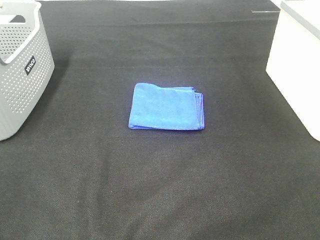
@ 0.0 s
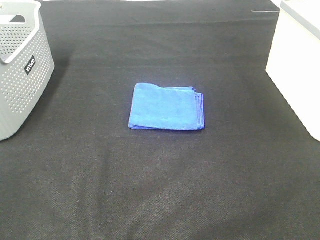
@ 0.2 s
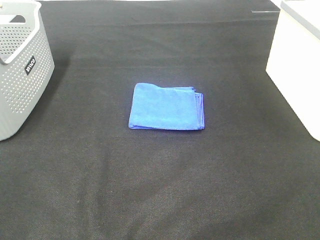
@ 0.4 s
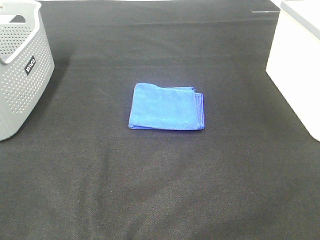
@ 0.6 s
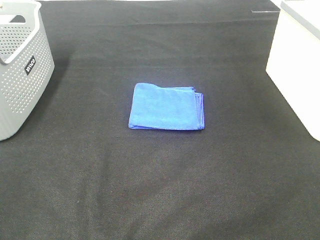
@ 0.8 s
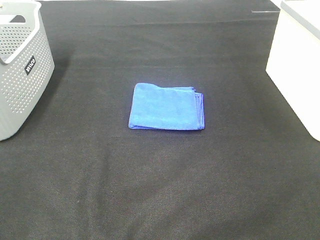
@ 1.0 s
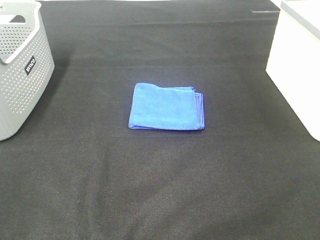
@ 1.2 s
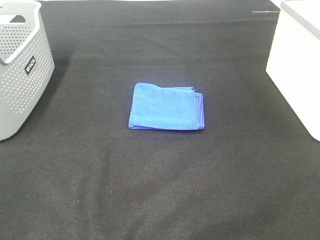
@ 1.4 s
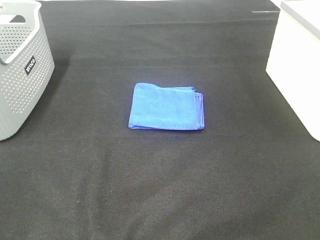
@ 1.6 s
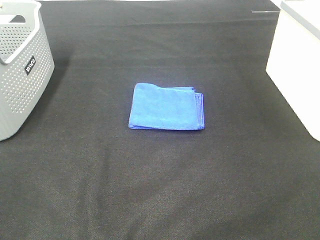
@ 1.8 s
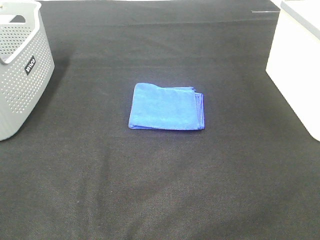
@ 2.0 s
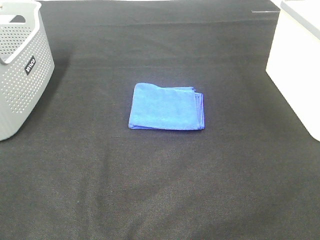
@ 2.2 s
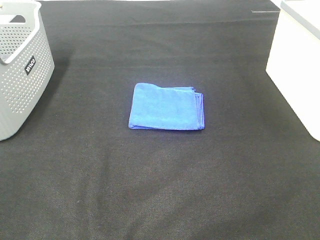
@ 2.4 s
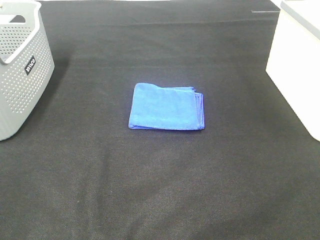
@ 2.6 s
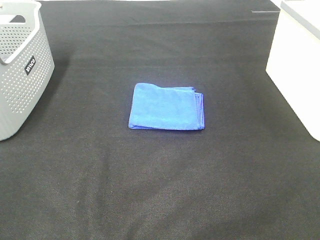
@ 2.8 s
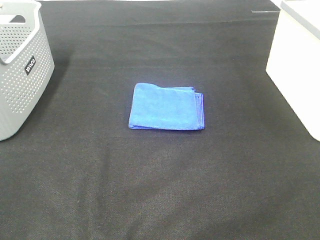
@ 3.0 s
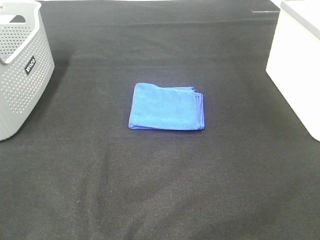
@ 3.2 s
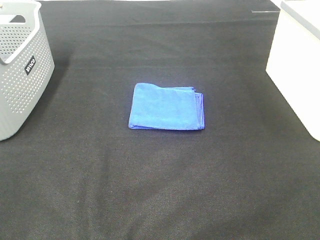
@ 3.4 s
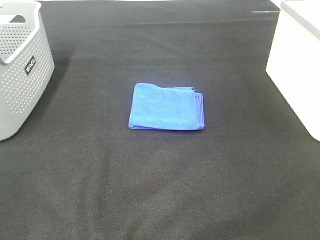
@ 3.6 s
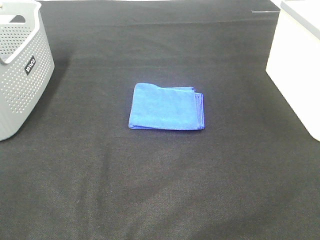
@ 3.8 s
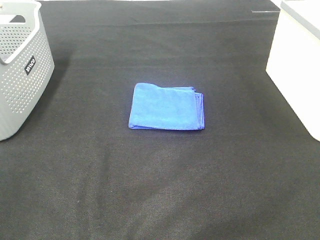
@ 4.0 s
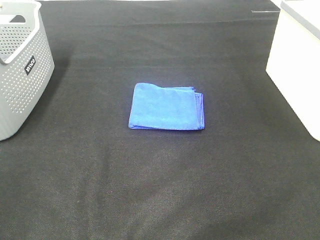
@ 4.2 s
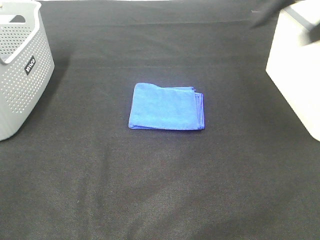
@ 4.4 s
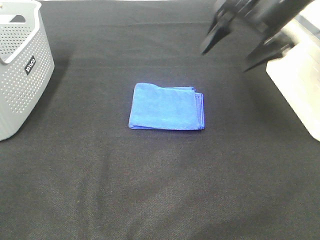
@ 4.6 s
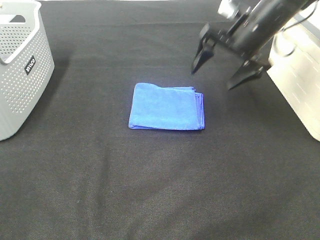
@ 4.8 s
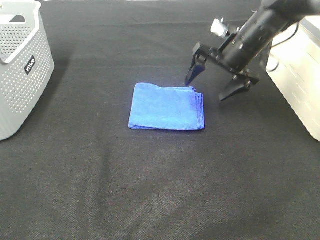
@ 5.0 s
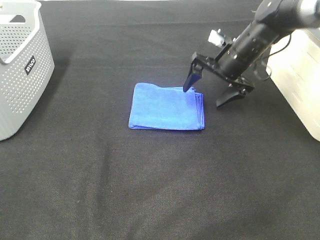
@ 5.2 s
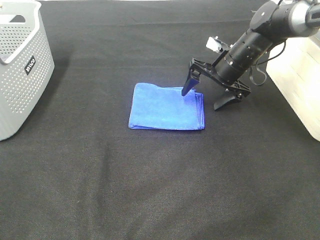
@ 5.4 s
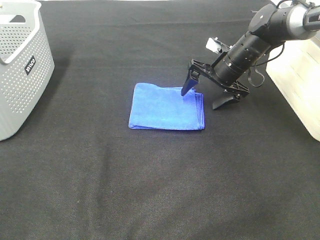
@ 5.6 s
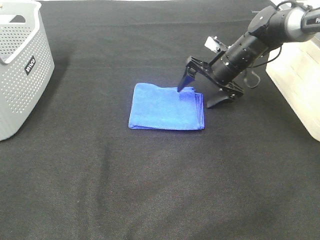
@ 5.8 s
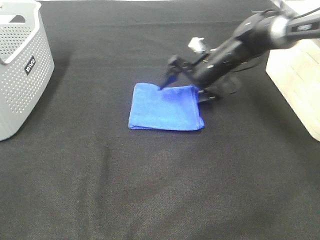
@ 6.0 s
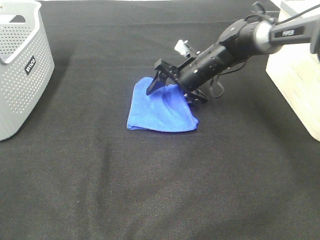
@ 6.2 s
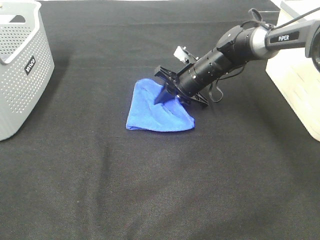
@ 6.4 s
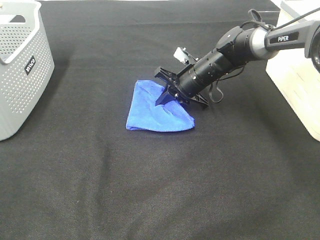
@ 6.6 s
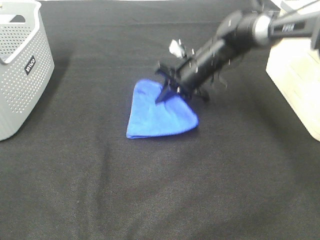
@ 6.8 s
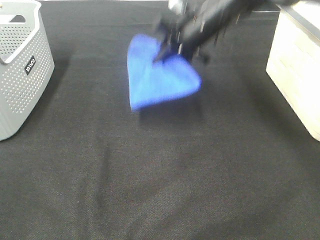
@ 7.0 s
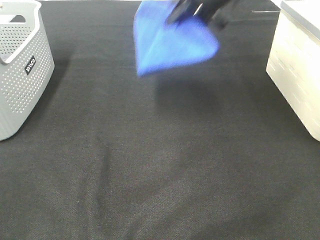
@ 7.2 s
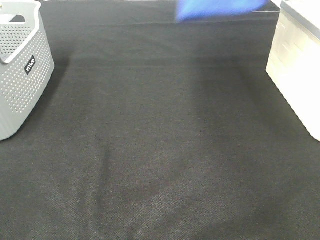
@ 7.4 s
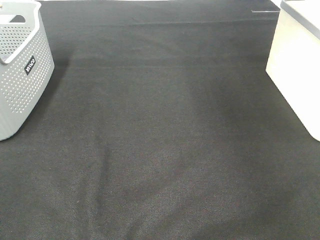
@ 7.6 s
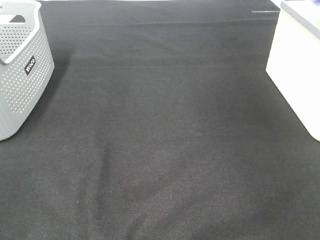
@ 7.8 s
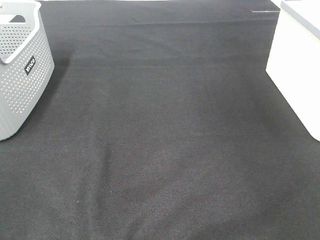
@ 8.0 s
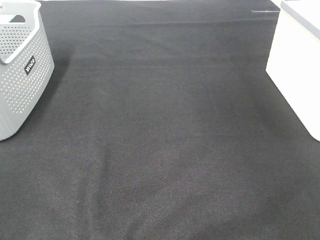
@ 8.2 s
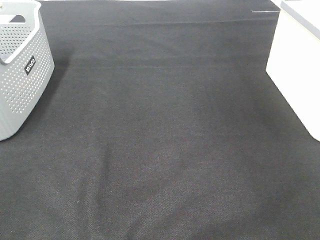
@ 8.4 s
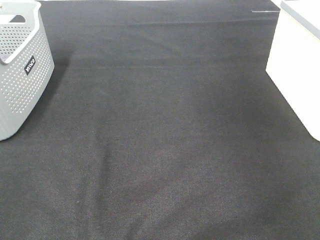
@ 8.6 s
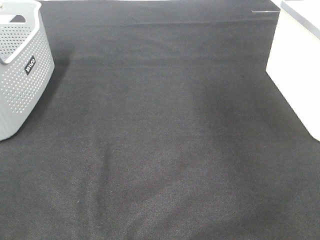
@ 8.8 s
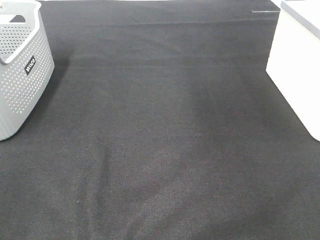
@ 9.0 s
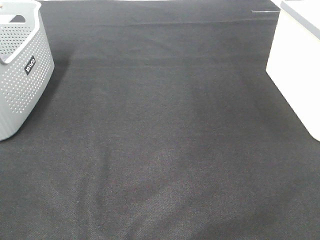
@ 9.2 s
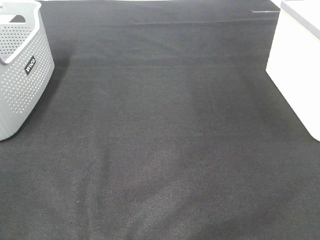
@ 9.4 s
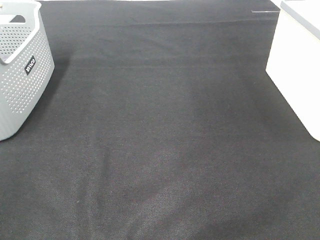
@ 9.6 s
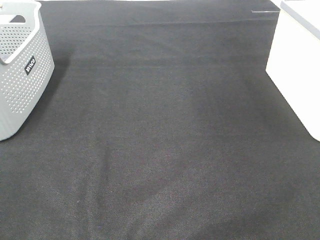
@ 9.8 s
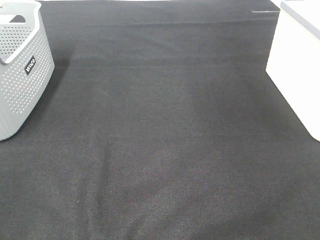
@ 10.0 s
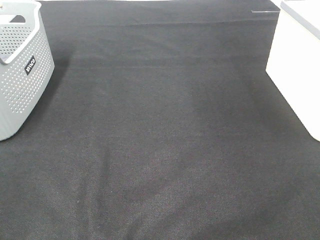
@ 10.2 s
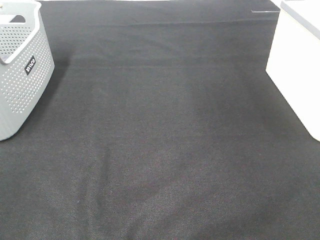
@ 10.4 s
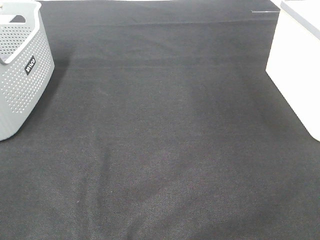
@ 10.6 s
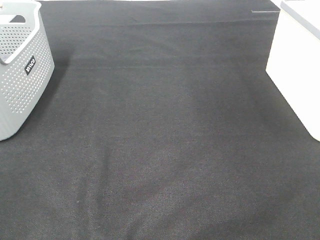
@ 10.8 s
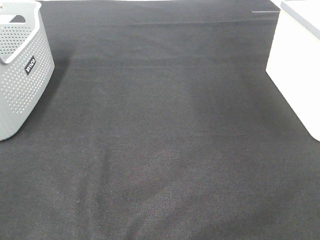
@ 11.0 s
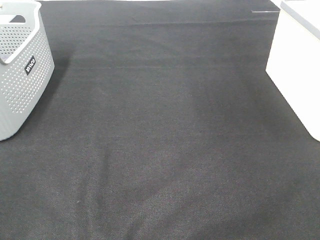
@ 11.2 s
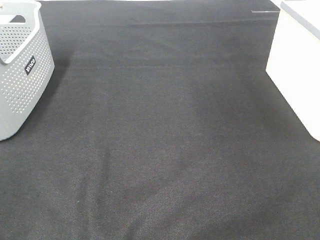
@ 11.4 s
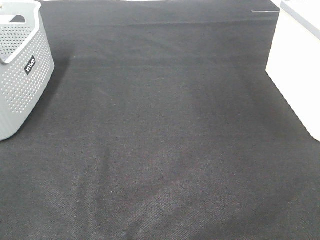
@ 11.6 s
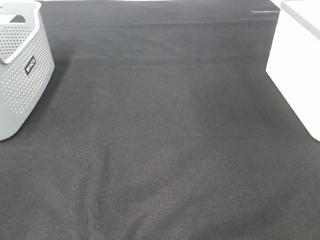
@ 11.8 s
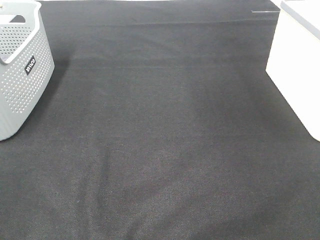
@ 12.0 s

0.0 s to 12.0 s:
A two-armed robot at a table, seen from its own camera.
Step, 0.0 to 6.4 s: Right hand: grab the folded blue towel.
Step, 6.6 to 8.6 s: Right hand: place the blue towel in right basket.
0.0 to 3.0 s: Both grippers stay put.
3.0 to 4.4 s: The right gripper heads forward, covering approximately 30 cm.
4.4 to 6.0 s: The right gripper shifts approximately 35 cm downward, forward and to the left.
6.0 to 7.6 s: The right gripper moves upward and to the right, about 40 cm, and closes up.

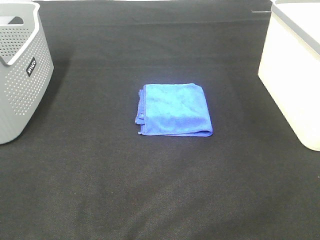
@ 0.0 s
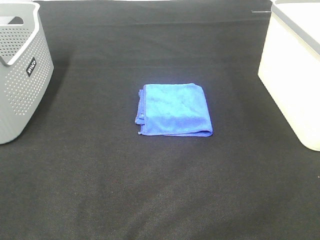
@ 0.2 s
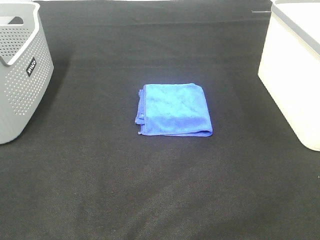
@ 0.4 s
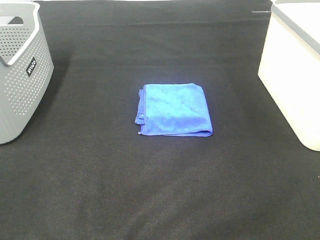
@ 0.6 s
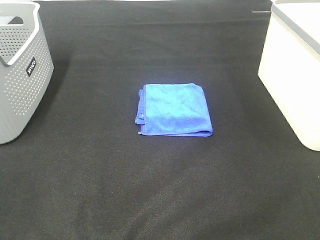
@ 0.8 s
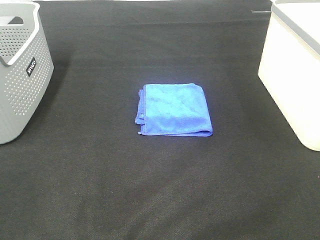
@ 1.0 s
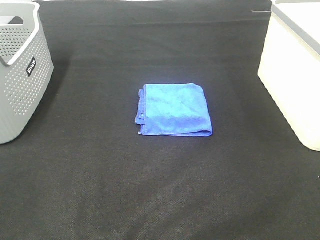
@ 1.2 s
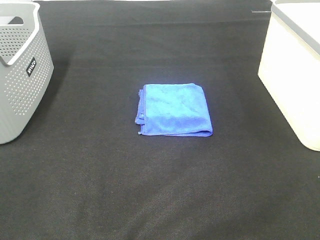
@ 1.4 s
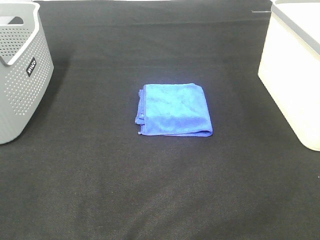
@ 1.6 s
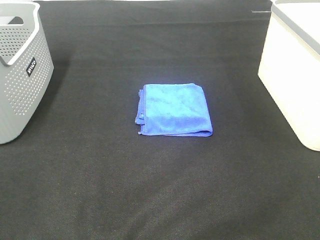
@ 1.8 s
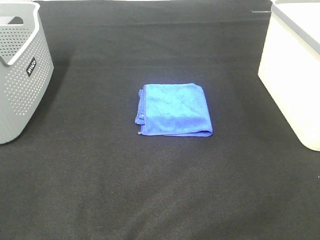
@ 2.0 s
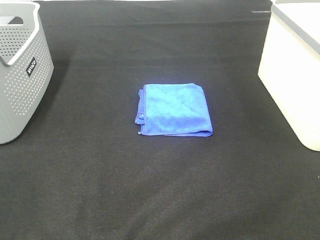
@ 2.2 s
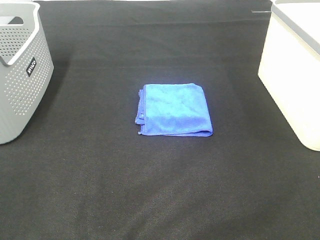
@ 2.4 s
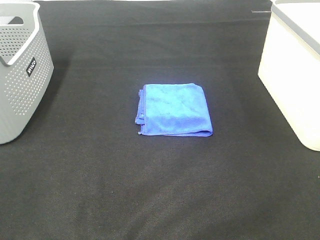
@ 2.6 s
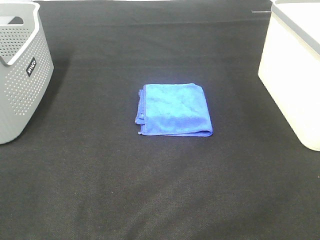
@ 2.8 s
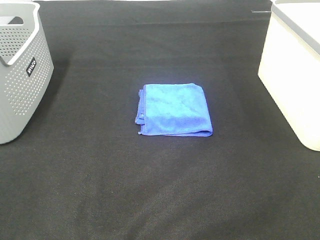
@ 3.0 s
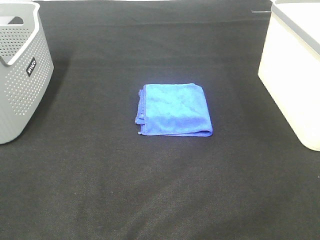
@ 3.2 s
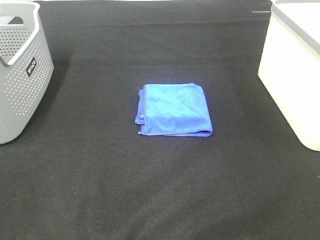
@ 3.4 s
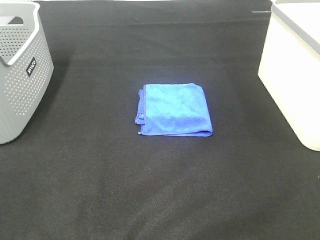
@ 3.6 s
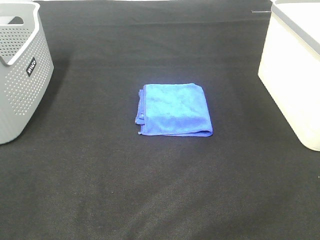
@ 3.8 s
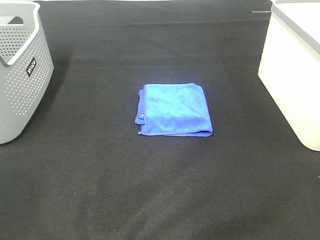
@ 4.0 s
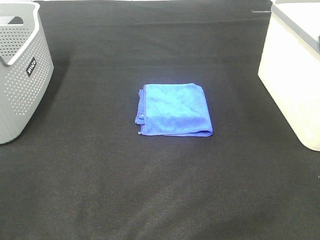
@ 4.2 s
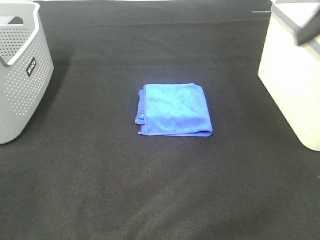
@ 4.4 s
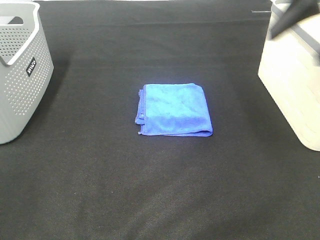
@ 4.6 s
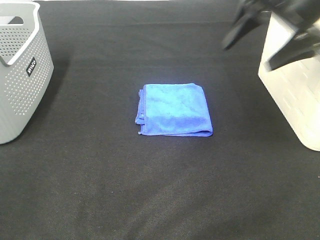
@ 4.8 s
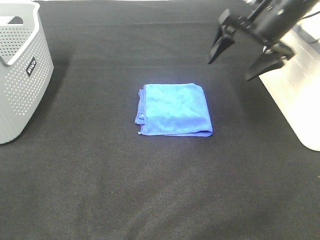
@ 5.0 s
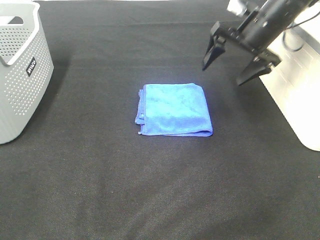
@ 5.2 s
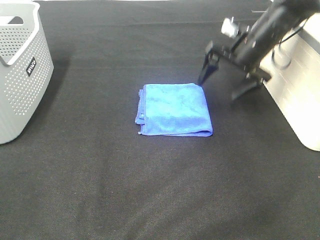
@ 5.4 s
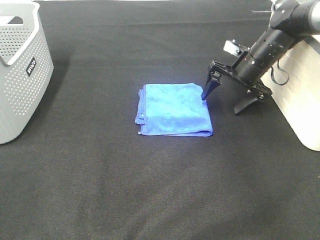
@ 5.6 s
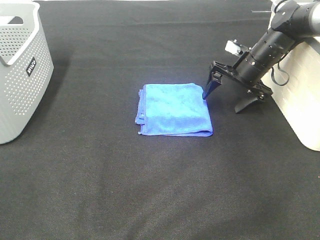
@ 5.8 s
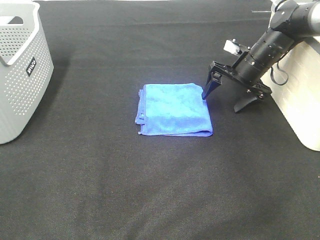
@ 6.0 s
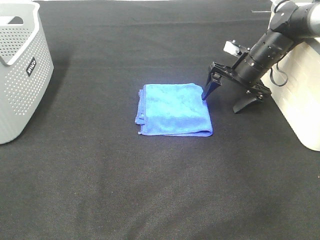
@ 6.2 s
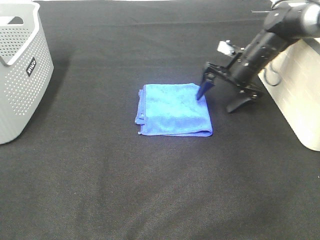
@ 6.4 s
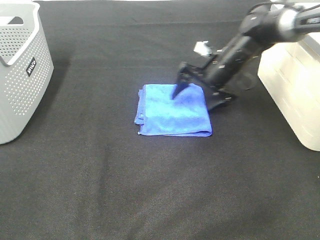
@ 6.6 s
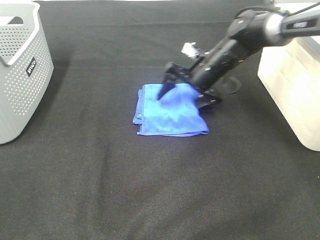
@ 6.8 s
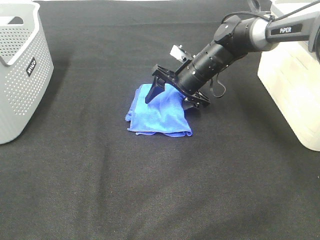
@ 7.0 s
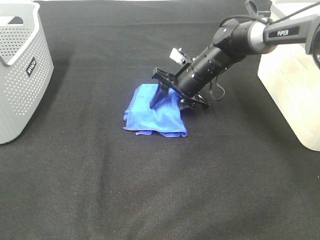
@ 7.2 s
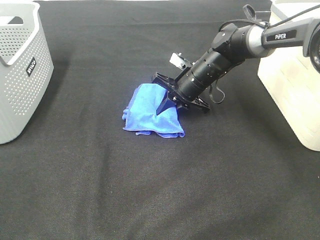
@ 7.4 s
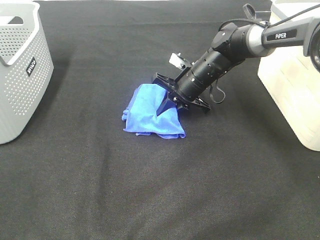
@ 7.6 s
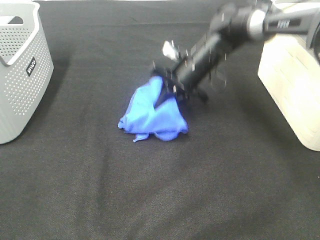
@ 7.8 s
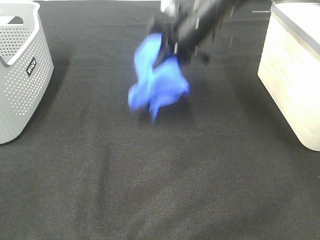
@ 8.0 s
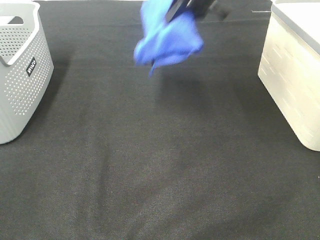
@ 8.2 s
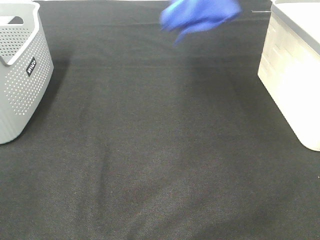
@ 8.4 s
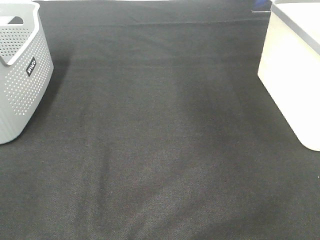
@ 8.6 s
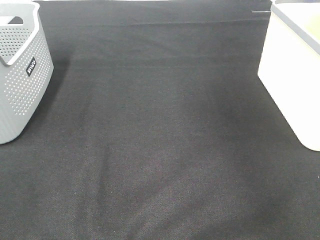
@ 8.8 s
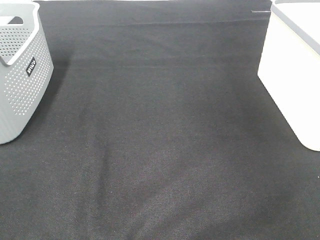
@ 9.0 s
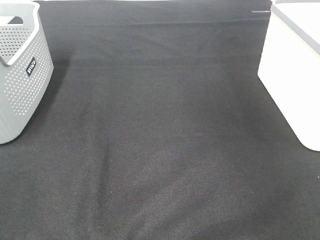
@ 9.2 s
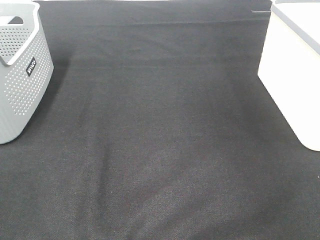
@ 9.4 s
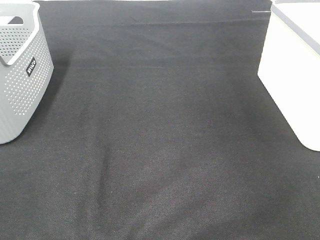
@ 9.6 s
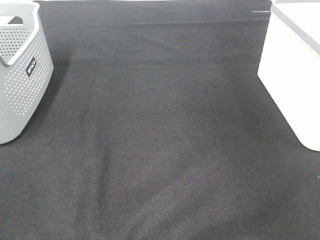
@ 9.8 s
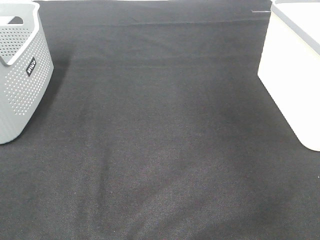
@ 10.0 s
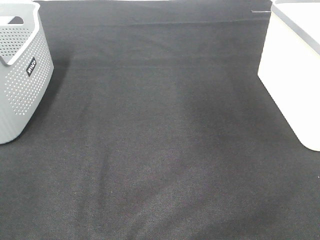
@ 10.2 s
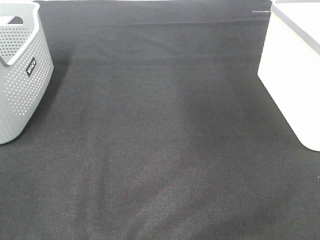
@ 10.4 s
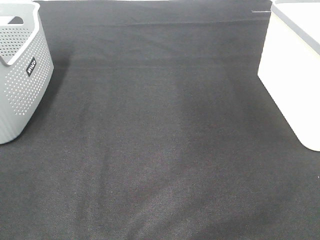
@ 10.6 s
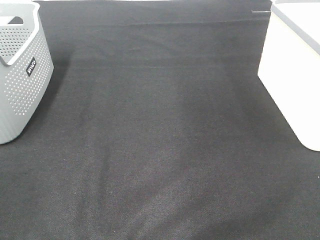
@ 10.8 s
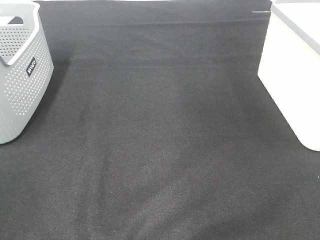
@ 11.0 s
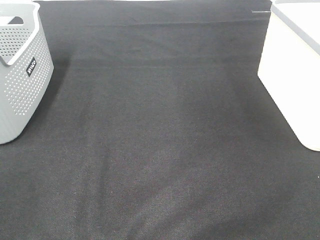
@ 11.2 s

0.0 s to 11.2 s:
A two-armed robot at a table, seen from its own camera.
Step, 0.0 to 7.4 s: Right hand: grab the folded blue towel.
Step, 7.6 to 9.8 s: Right hand: place the blue towel in right basket.
0.0 to 3.2 s: Both grippers stay put.
3.2 to 4.8 s: The right gripper travels forward by about 35 cm.
4.8 to 6.4 s: The right gripper is displaced downward and forward by approximately 20 cm.
6.4 to 8.0 s: The right gripper is displaced upward and to the left by roughly 15 cm, and closes.
8.0 to 9.6 s: The right gripper shifts some 35 cm to the right, and opens.
